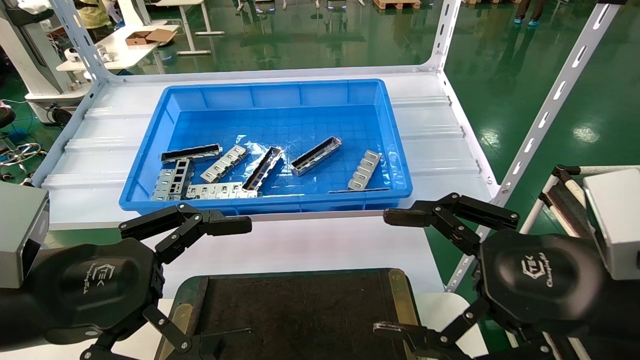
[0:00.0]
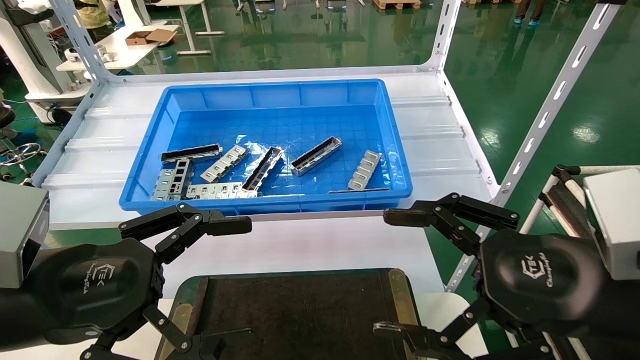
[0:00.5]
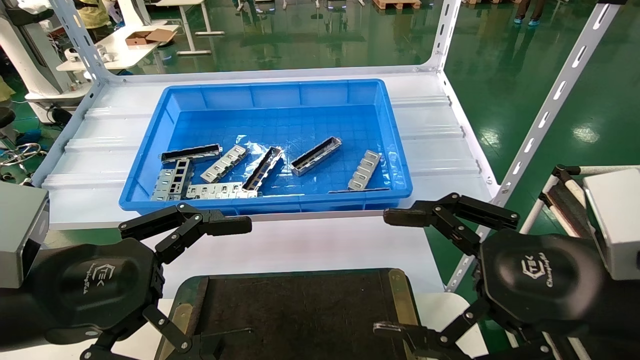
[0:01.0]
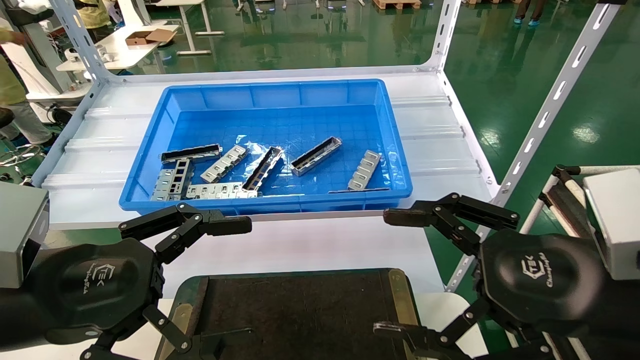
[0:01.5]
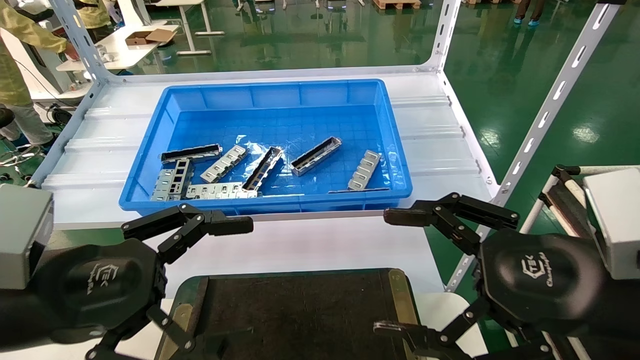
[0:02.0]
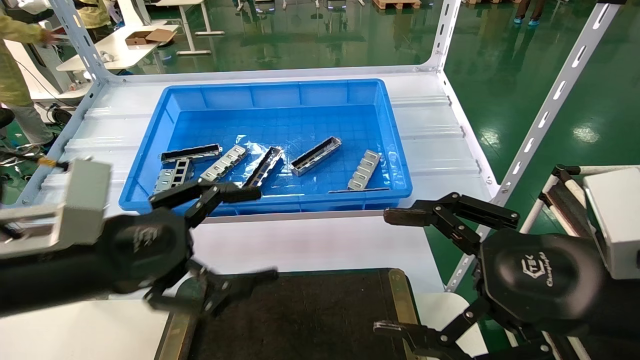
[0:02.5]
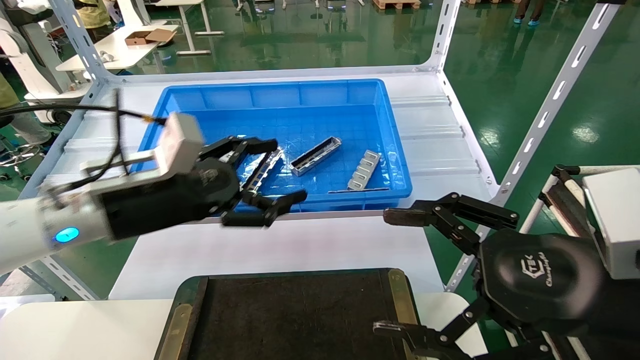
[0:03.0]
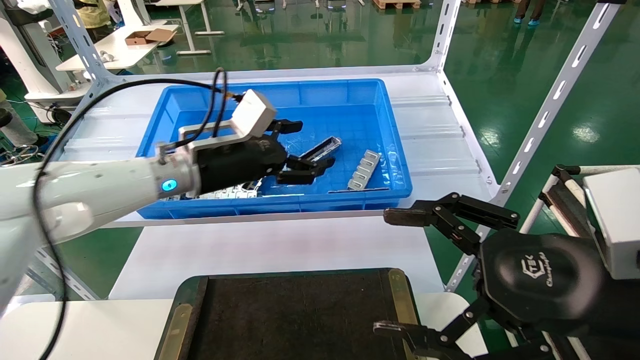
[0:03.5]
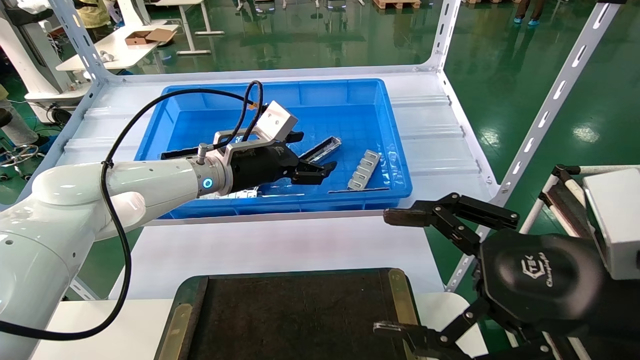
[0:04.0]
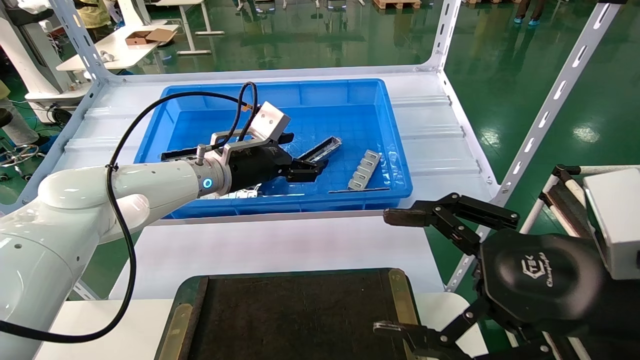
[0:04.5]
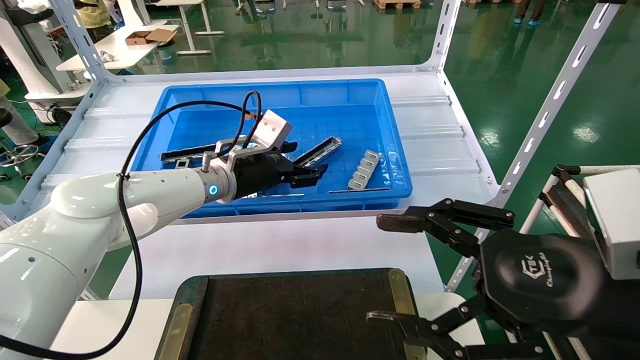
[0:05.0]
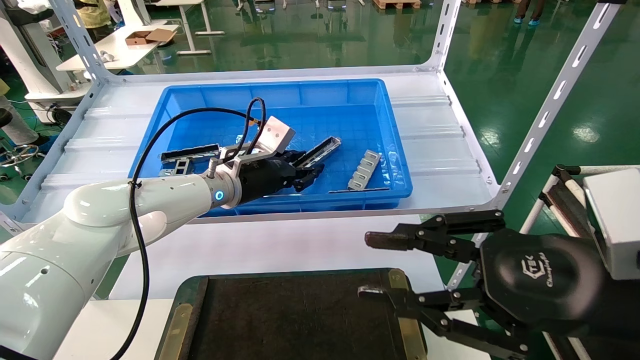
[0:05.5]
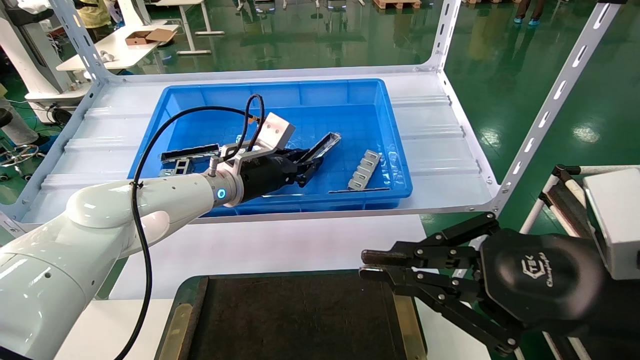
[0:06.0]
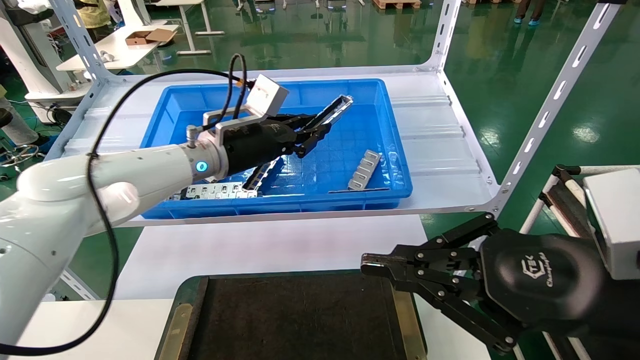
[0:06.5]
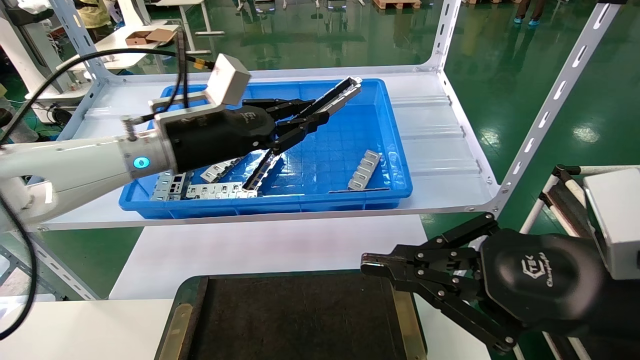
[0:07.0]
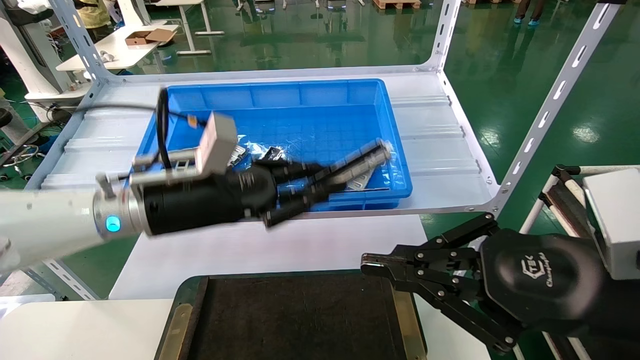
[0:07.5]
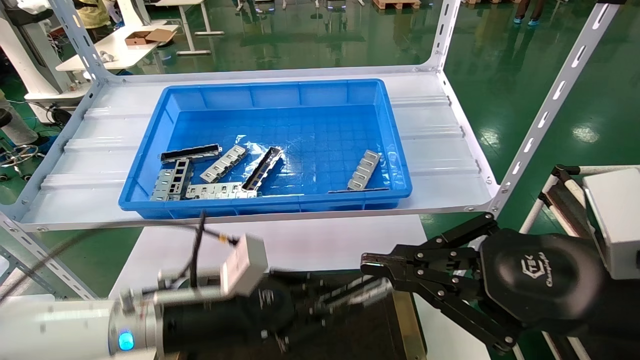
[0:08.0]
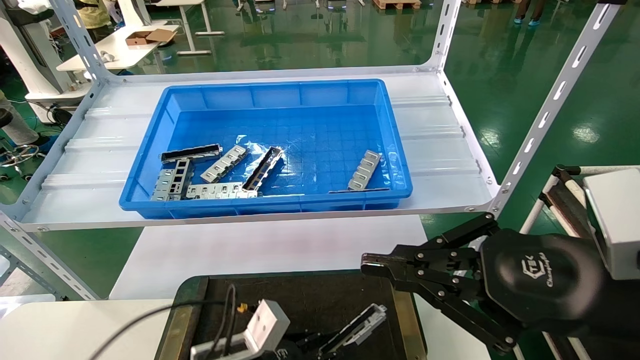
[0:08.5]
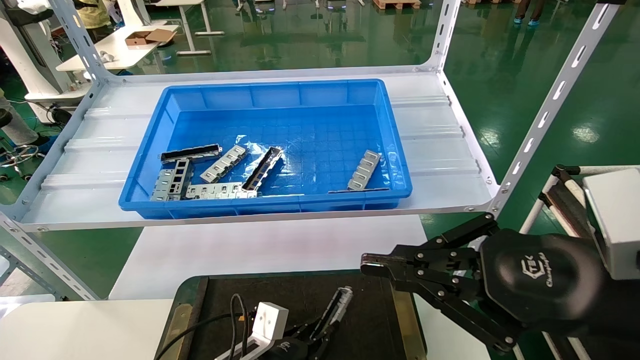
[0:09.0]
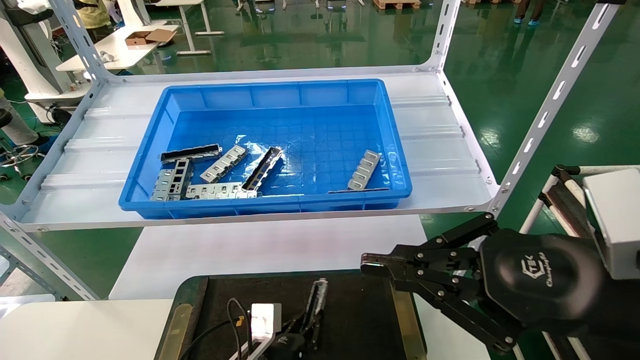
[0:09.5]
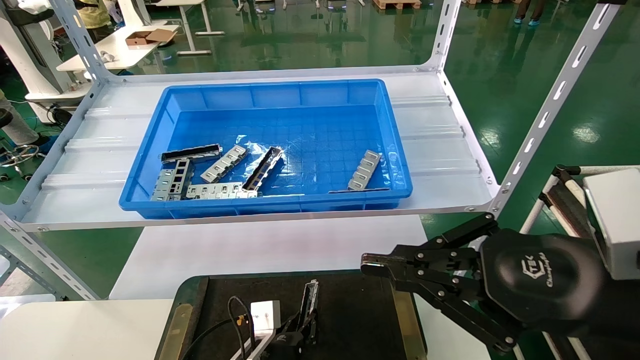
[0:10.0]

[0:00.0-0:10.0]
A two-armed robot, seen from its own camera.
Task of the whole recording: Grasp the part with one hand and place it on the black container.
Step, 0:02.0 to 0:05.5: Pick up the front USB bracket from the feeding area.
0:00.0 to 0:02.0: Both grippers stay put.
0:02.0 to 0:04.0: The left gripper is displaced forward and to the right by approximately 30 cm.
0:04.0 to 0:06.0: The left gripper closes, while the right gripper closes its fingers.
0:06.0 to 0:08.0: The left gripper goes roughly 20 cm backward and downward.
0:08.0 to 0:10.0: The left gripper goes about 20 cm downward.

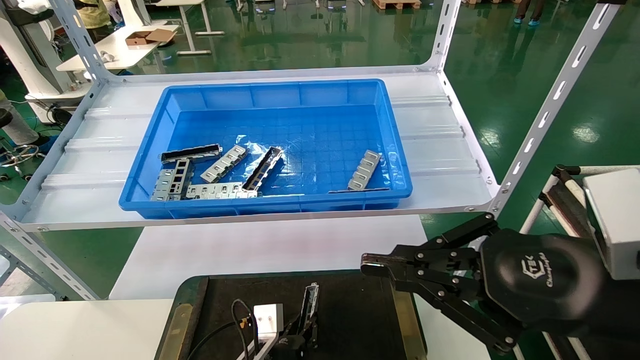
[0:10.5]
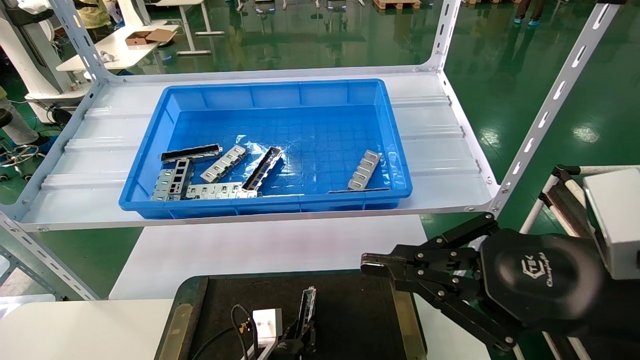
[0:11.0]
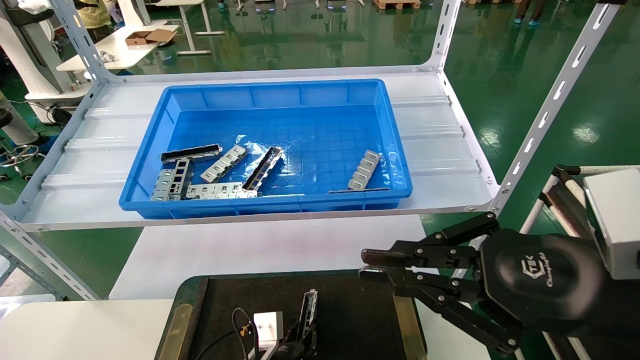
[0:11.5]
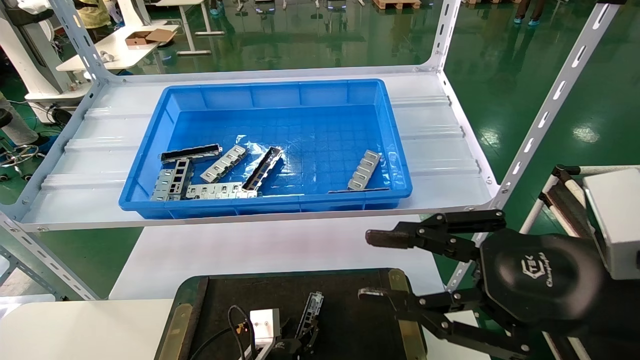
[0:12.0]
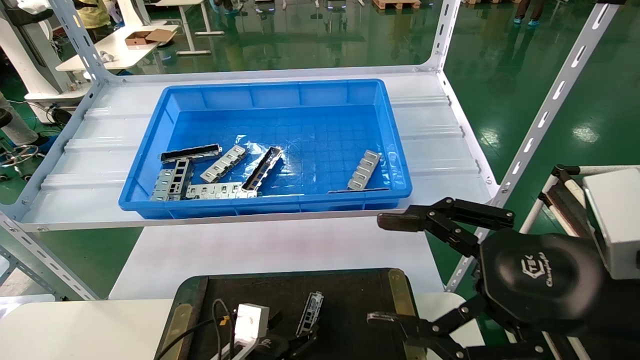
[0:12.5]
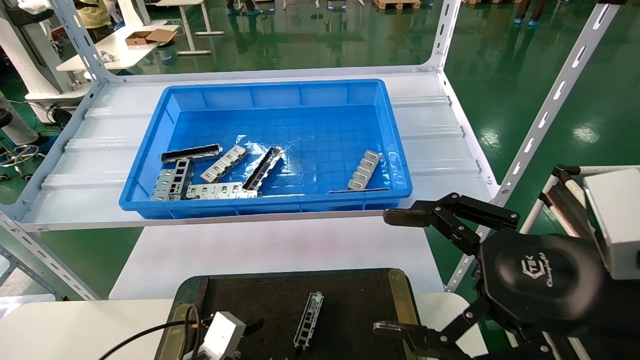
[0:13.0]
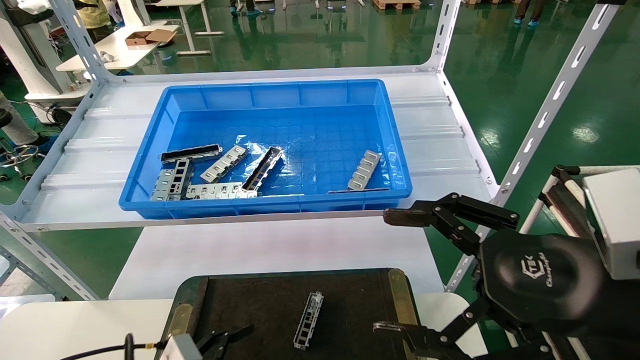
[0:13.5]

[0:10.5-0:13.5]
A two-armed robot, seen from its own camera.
Task of the whole recording: Grasp the part with one hand and place it on the black container.
0:10.5 to 0:12.0: The two grippers keep their place.
0:12.0 to 0:13.5: The left gripper heads to the left, backward and upward, covering some 20 cm, and opens, while the right gripper opens its fingers.

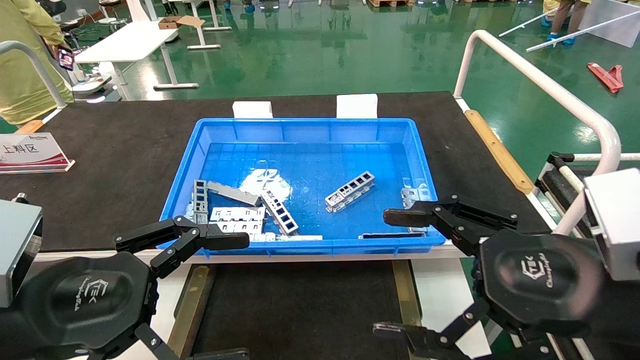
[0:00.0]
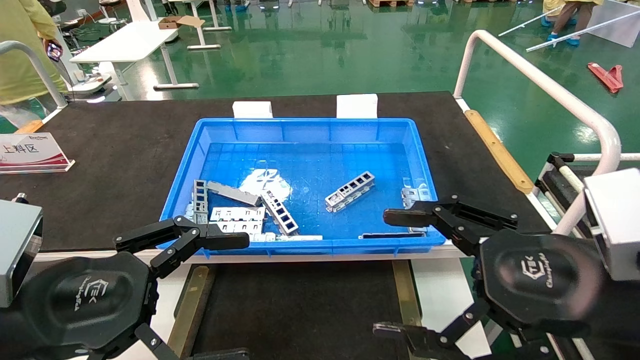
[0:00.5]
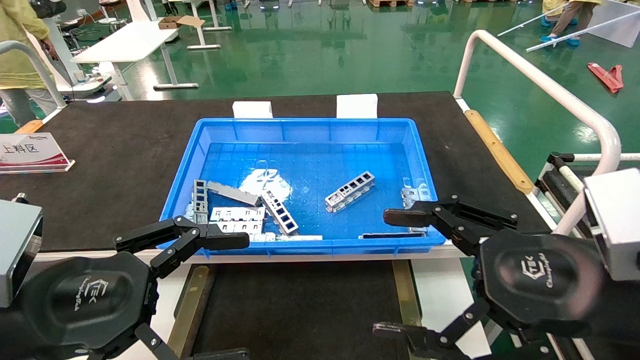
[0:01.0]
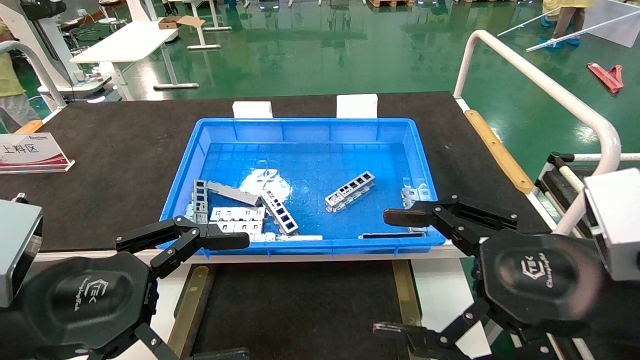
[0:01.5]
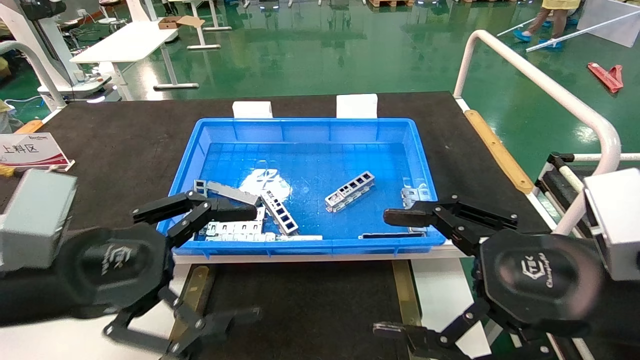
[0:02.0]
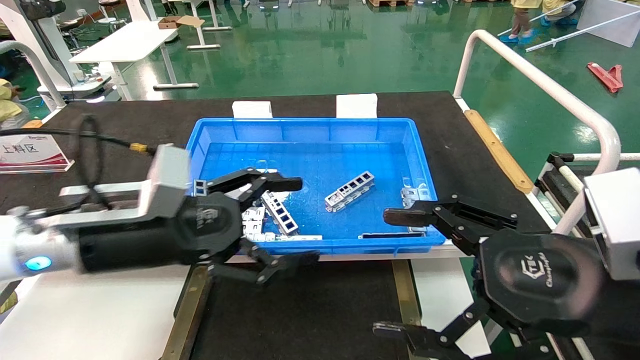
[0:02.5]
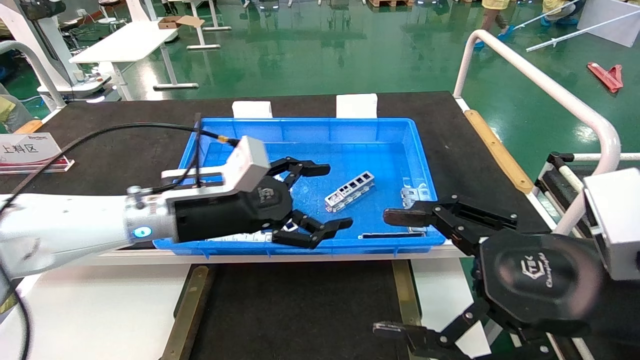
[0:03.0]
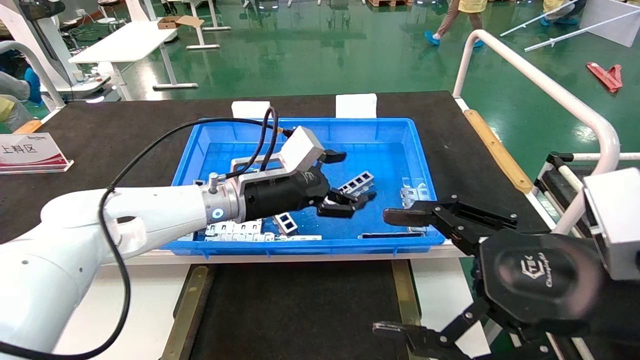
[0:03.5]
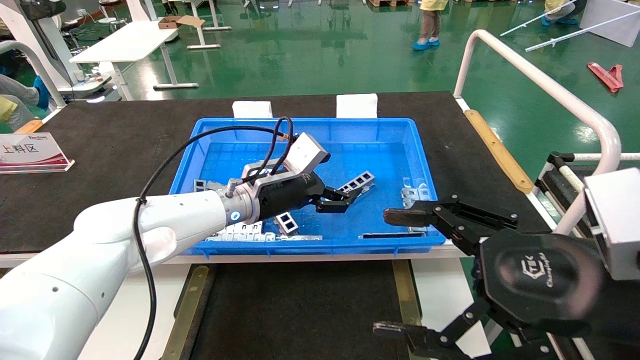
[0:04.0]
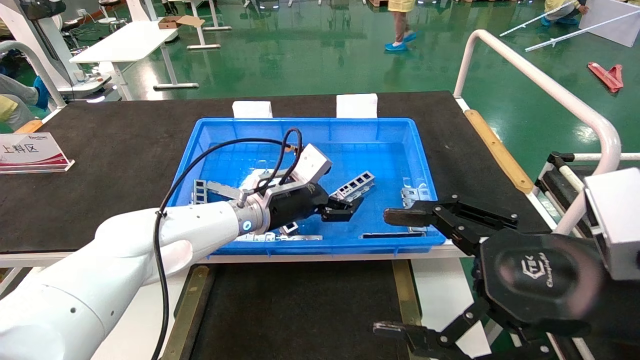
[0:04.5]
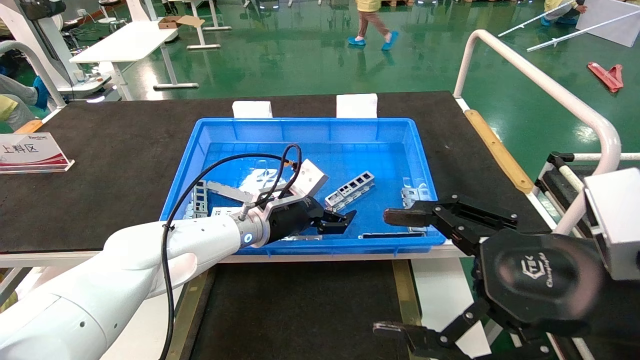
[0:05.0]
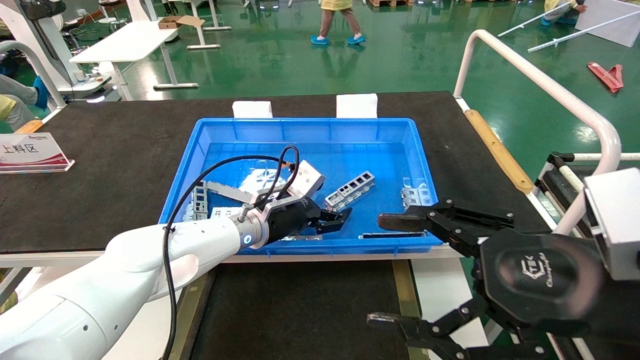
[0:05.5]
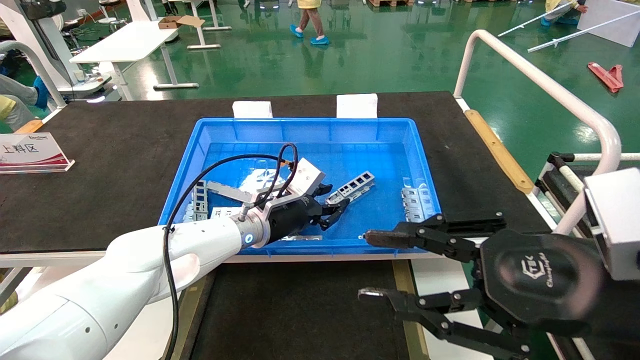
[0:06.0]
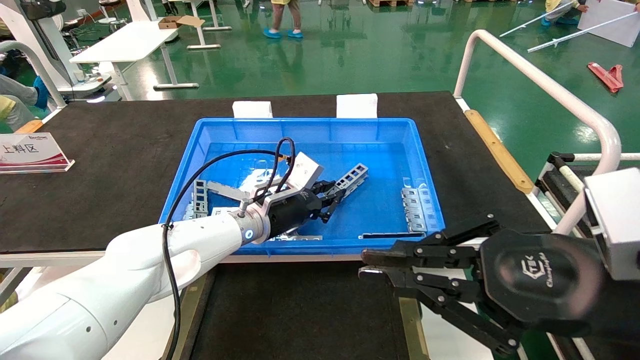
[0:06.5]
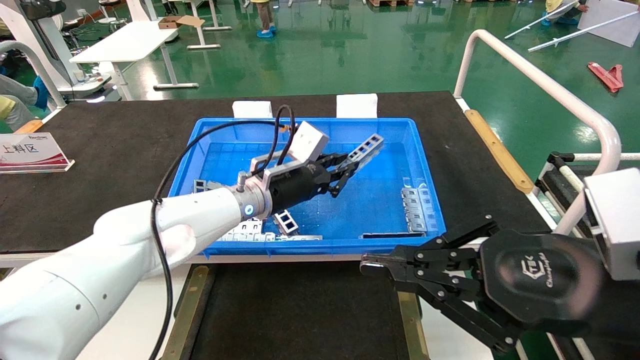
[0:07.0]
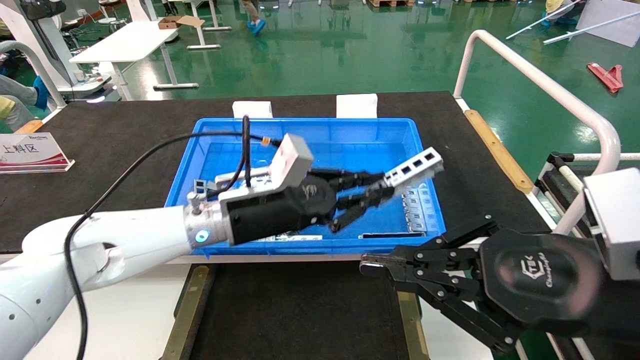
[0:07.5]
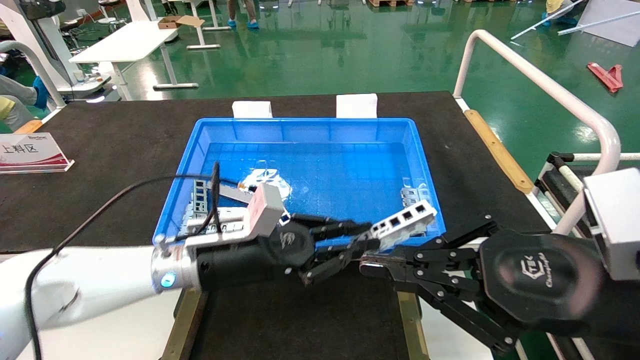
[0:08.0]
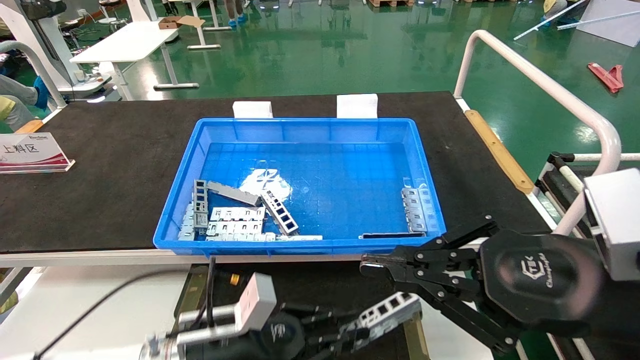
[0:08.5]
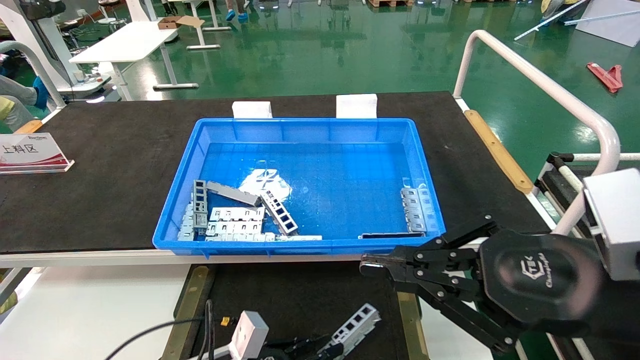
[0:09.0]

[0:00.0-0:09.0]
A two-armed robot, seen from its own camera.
Task of the whole recording: Grasp the part with one hand and place it on the black container.
Step, 0:02.0 to 0:06.0: Pick up the front USB bracket from the feeding area.
0:00.0 to 0:02.0: There are only small adjustments of the grippers.
0:02.0 to 0:04.5: The left gripper moves forward and to the right, roughly 30 cm.
0:04.5 to 0:07.0: The right gripper closes up. Meanwhile the left gripper closes its fingers.
0:07.0 to 0:09.0: The left gripper heads downward and backward, covering approximately 30 cm.
